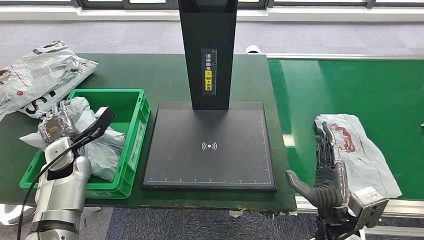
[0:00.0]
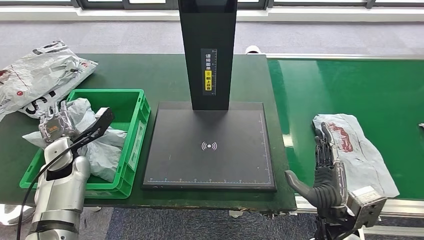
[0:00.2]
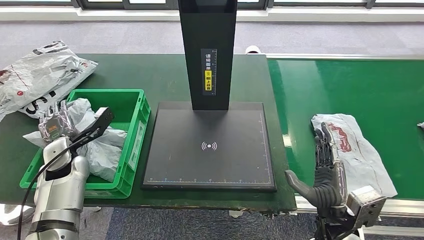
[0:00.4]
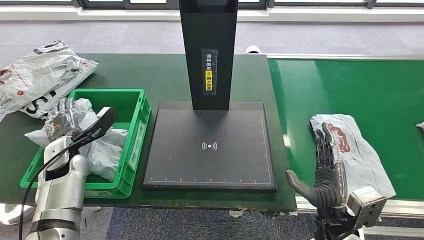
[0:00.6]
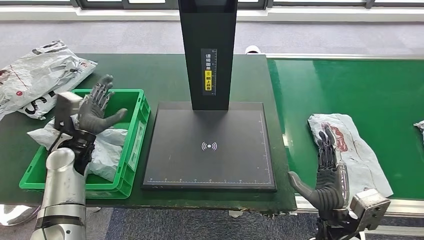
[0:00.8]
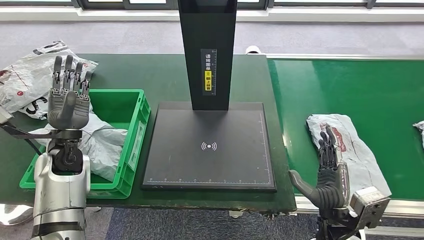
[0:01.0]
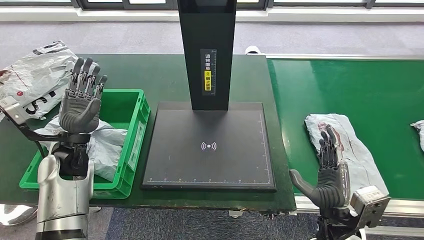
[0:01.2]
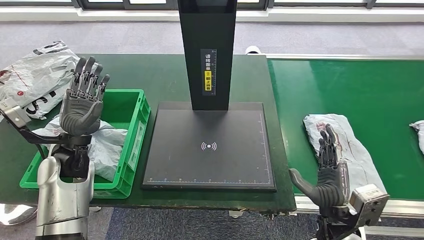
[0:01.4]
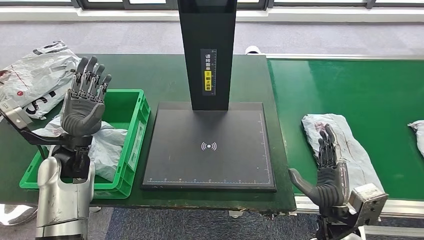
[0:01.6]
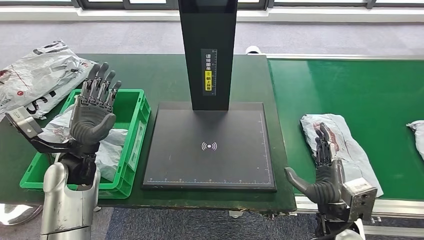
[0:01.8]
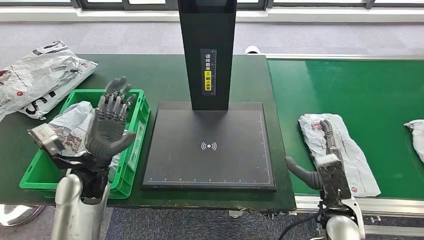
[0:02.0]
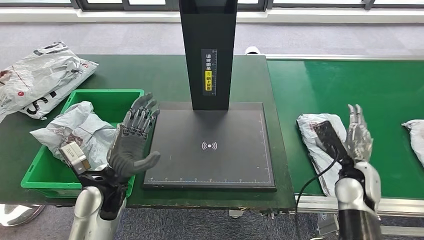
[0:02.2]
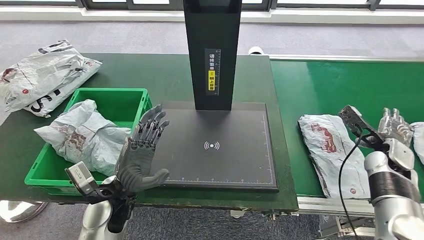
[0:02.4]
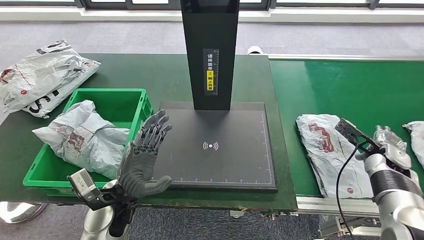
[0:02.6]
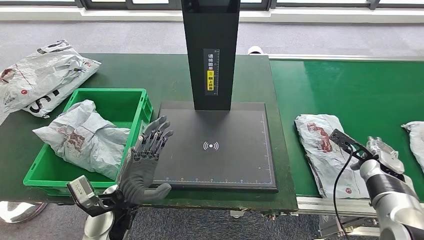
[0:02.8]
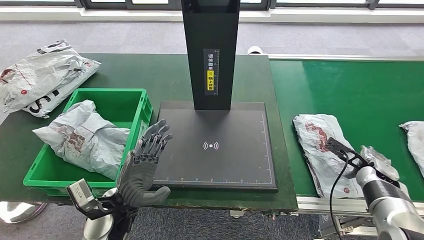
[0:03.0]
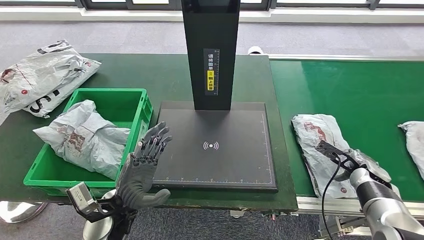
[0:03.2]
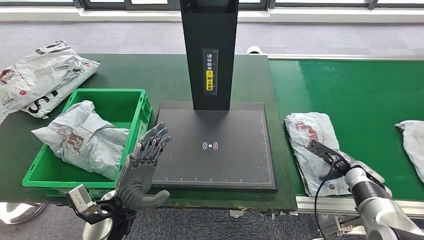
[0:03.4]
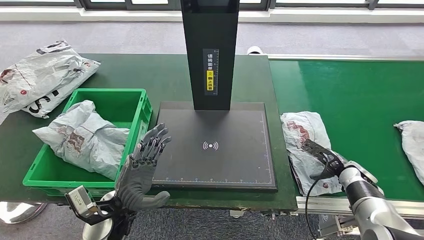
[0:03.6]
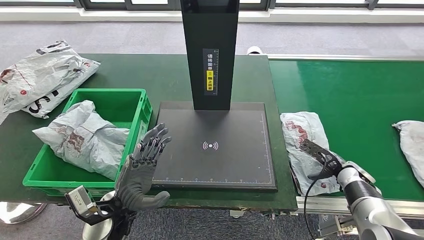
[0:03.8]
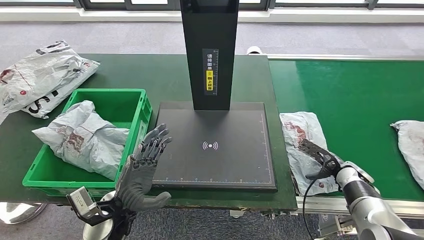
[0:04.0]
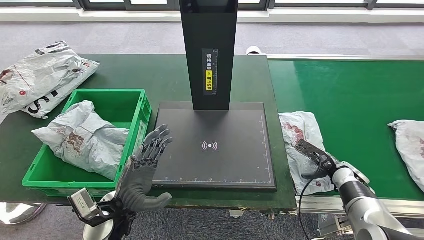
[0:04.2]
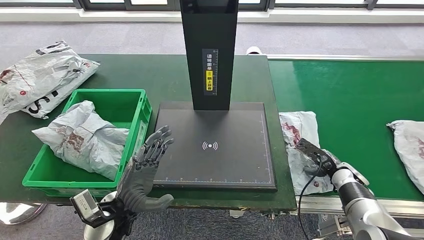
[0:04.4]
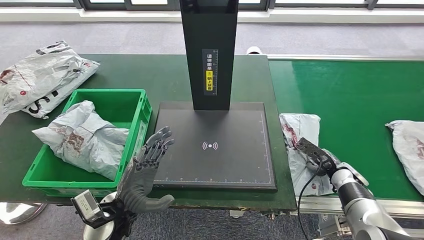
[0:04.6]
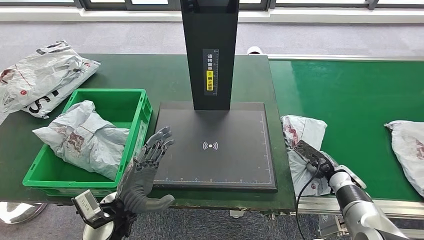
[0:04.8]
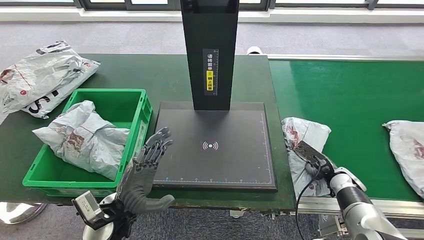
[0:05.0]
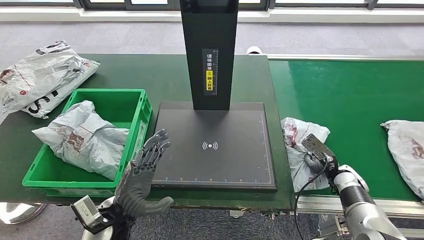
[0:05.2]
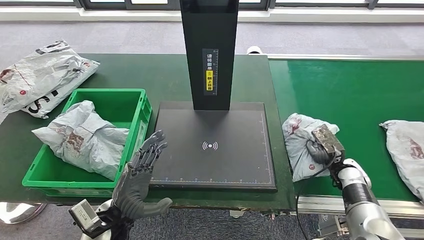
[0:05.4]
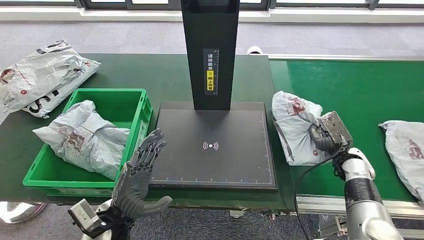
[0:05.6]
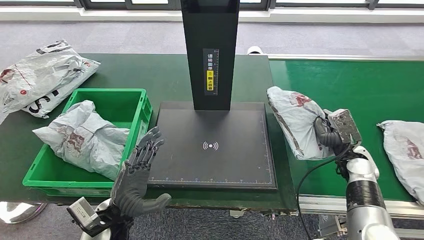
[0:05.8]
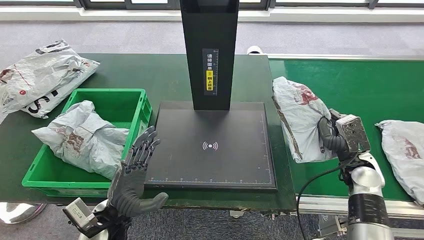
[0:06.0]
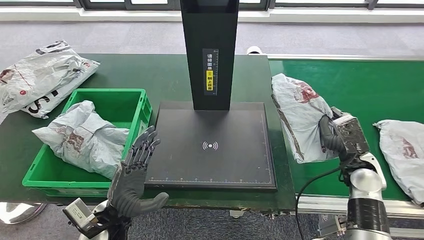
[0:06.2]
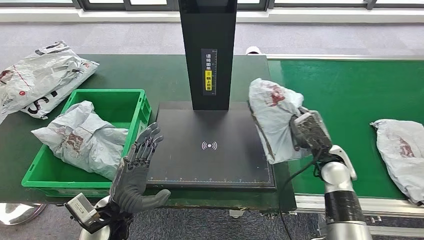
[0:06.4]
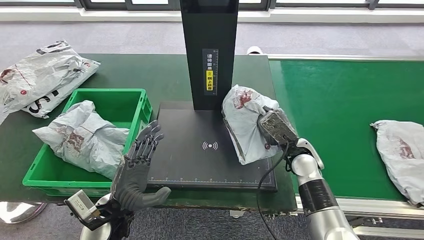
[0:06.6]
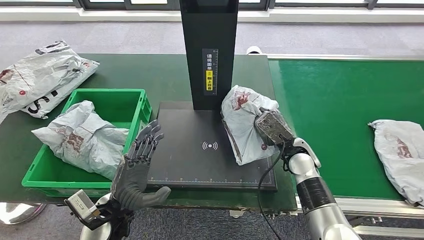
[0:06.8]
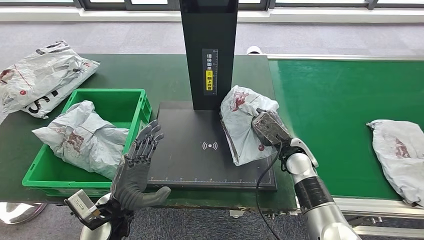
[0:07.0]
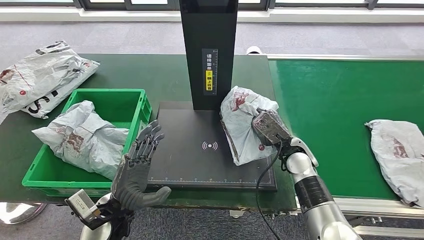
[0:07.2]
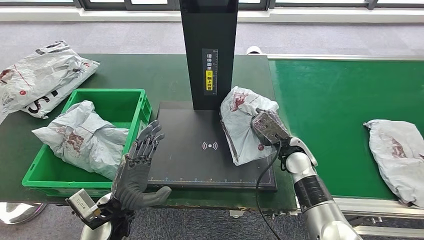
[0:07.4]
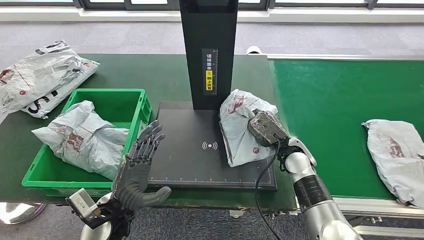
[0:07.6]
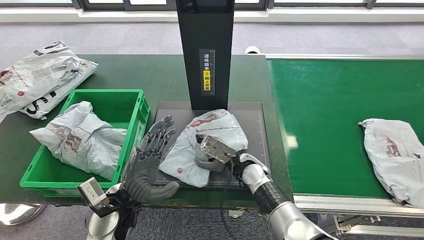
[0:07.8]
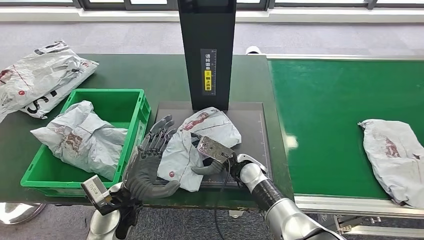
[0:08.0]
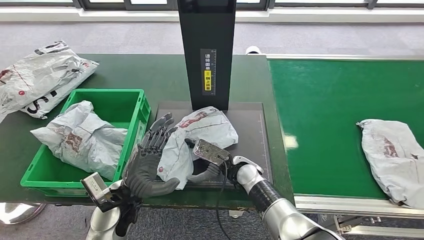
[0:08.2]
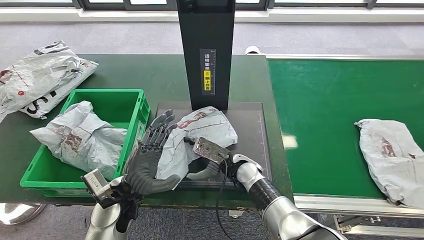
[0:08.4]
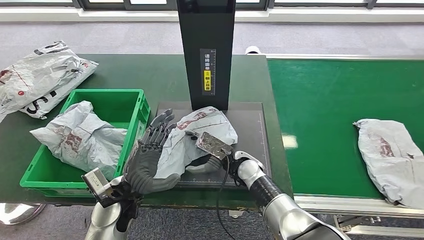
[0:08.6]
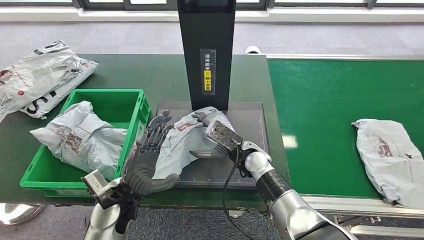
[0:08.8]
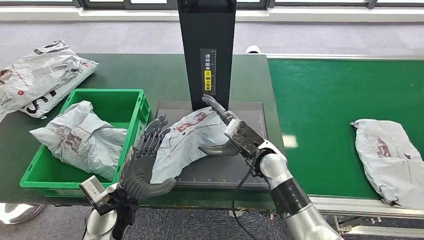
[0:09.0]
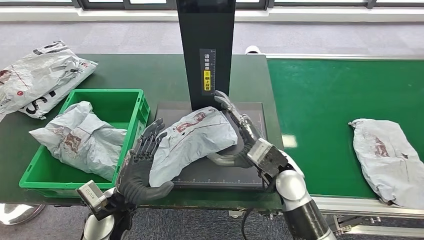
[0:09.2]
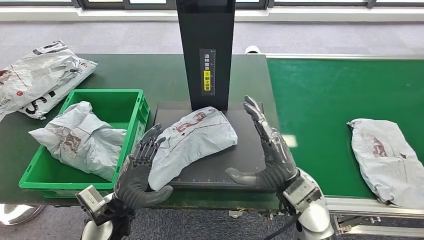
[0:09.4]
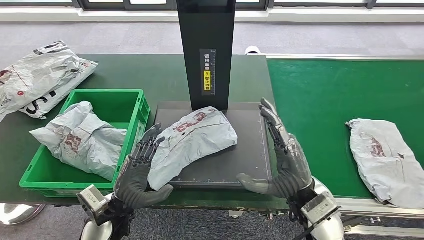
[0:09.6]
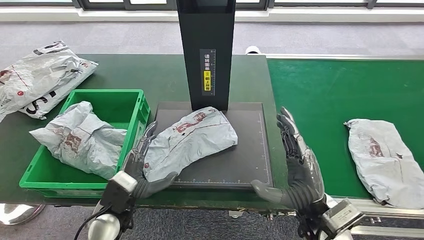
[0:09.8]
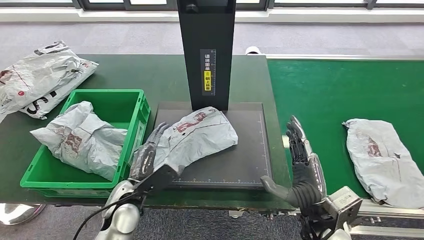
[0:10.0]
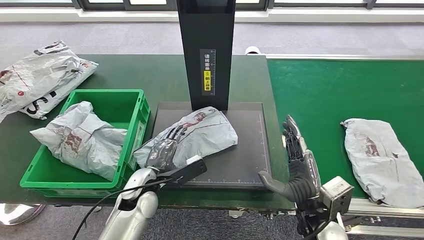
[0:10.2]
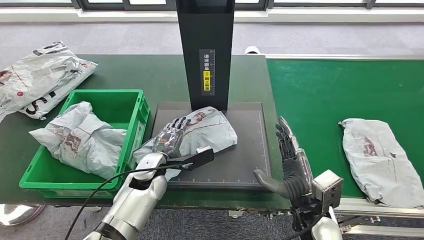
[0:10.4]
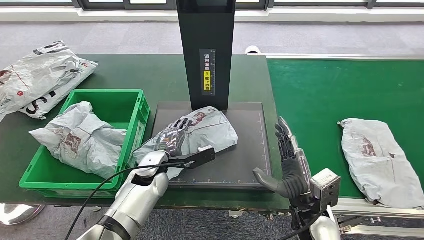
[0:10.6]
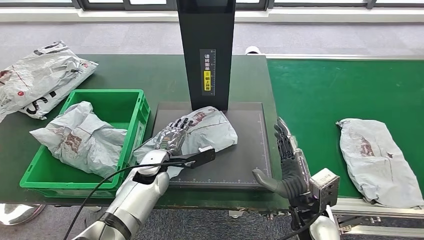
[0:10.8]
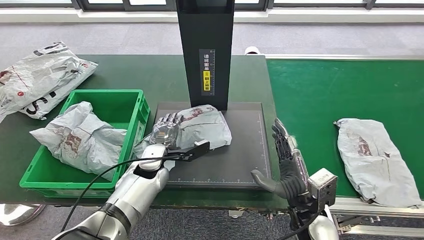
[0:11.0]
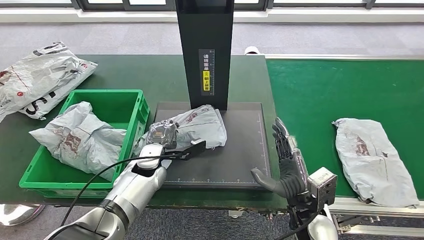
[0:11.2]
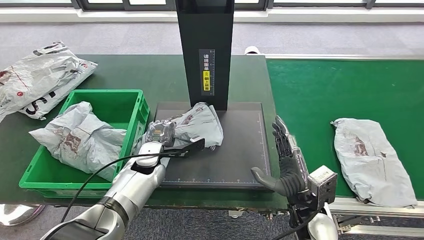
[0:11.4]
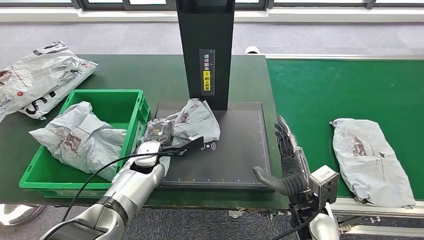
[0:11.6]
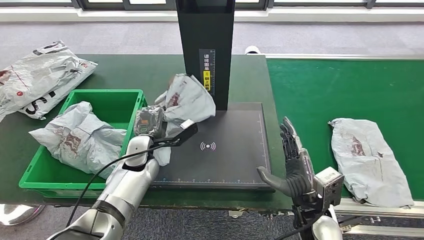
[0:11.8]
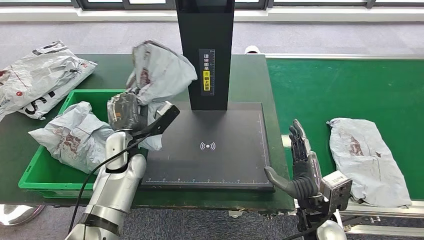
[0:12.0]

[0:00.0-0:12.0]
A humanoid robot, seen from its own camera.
Step, 0:00.0 to 0:01.8: Put the parcel inside the courier box.
Step, 0:02.0 to 0:06.2: Pick up the parcel from the conveyor belt.
Step, 0:06.4 to 0:09.0: Place the parcel onto the inbound machine.
0:00.0 to 0:01.6: The left hand travels upward and to the right by some 10 cm.
0:03.0 to 0:04.4: The right hand shifts some 5 cm to the left.
0:04.4 to 0:06.0: The right hand travels upward by about 10 cm.

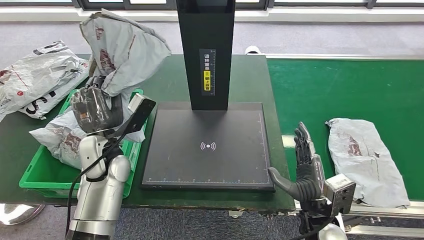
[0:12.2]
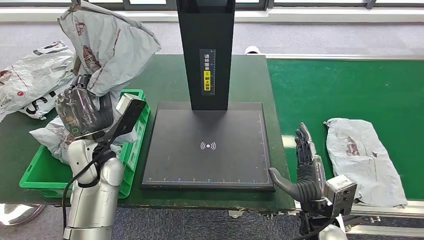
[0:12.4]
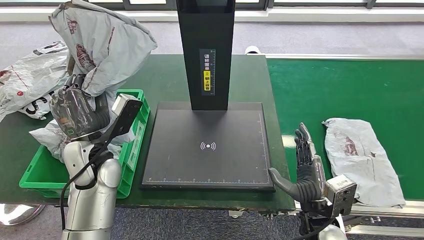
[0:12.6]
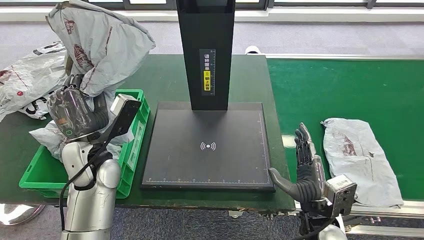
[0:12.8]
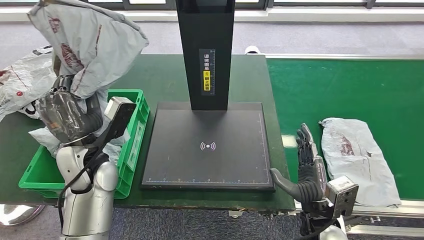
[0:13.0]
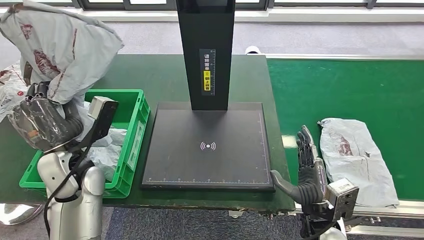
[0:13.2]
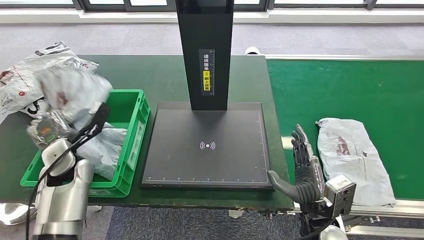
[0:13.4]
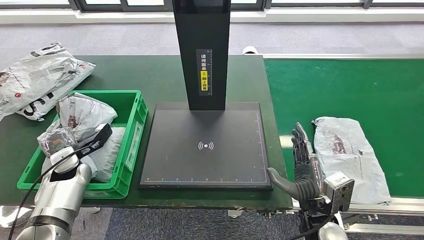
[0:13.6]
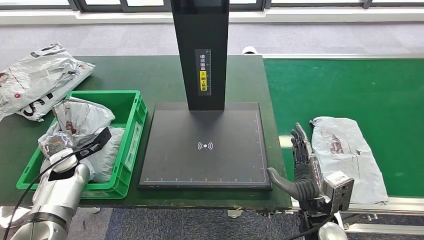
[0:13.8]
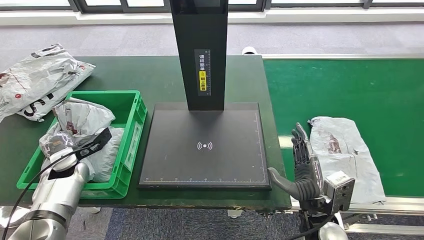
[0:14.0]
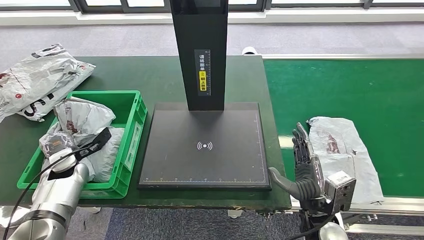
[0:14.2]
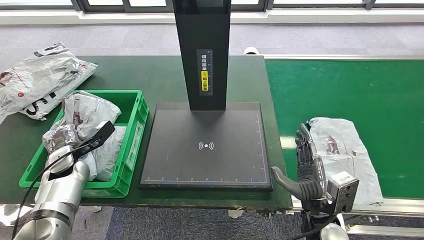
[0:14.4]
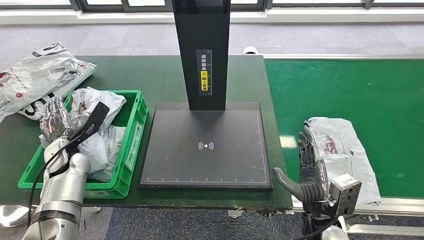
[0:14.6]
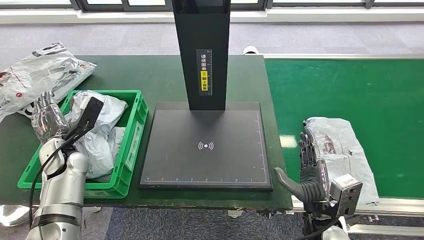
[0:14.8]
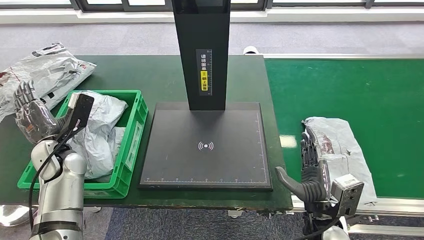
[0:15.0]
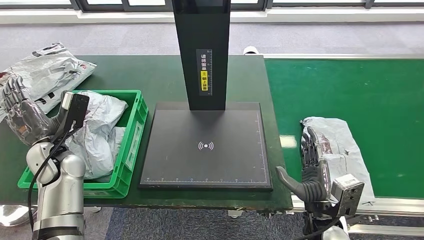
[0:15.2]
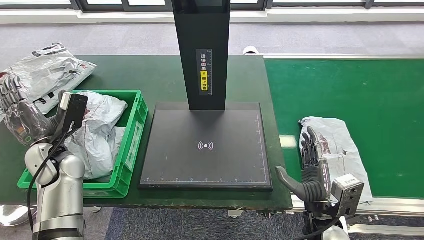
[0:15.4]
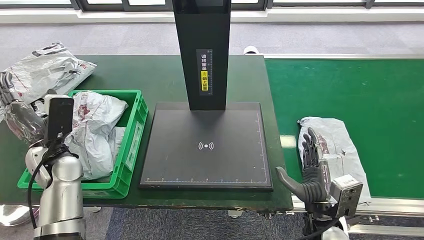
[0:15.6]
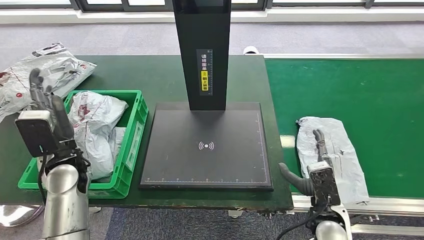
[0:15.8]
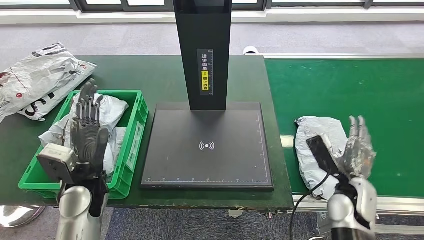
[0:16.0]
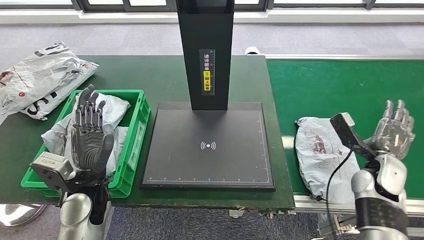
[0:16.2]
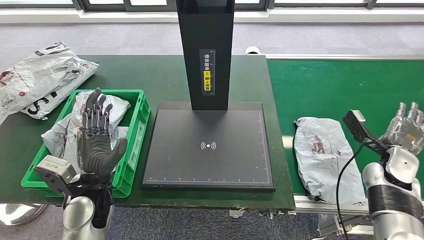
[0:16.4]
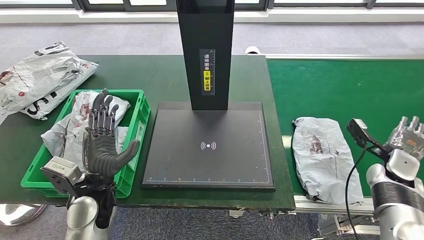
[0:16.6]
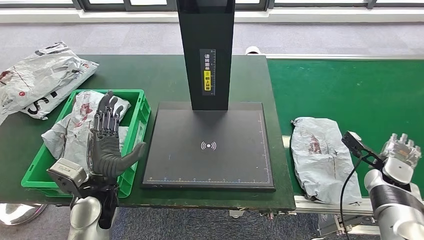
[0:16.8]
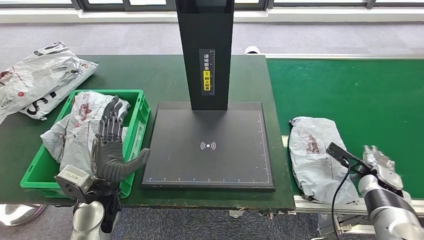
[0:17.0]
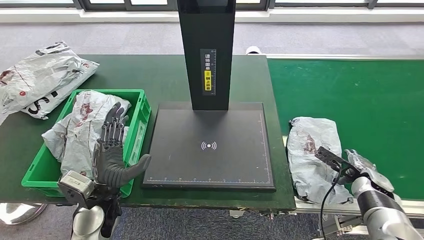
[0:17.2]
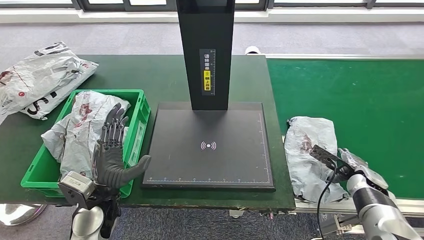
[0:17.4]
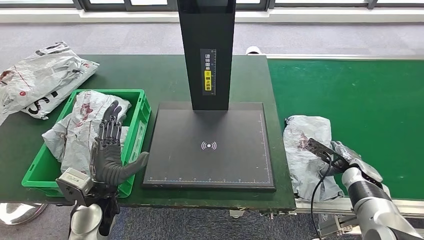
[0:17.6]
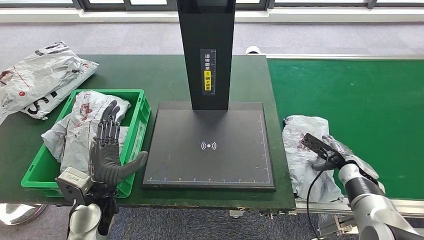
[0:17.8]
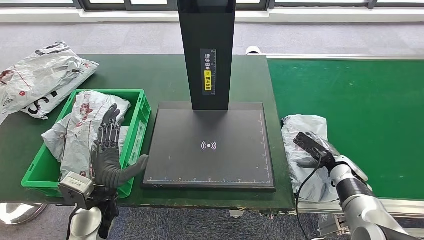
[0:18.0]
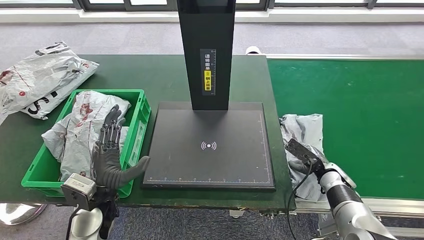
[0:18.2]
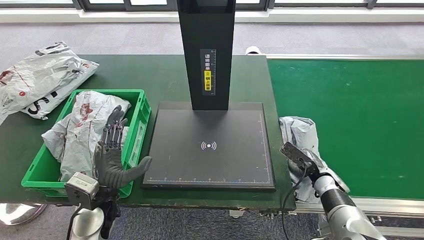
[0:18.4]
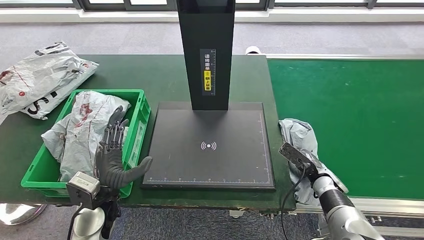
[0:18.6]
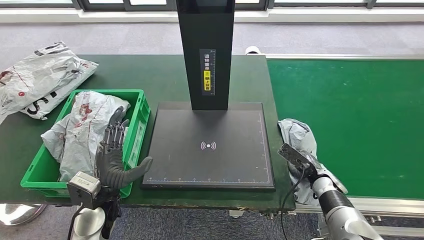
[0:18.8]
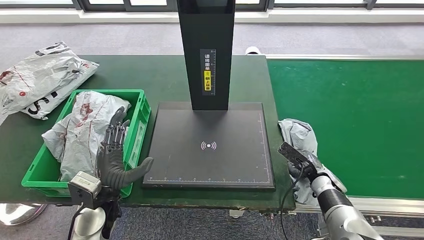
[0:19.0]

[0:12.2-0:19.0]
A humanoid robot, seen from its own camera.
Step, 0:12.4 to 0:15.6: Place the parcel into the delivery box.
0:13.6 to 0:15.0: The left hand moves upward, some 5 cm.
0:17.6 to 0:19.0: The right hand heads to the left, covering approximately 10 cm.
